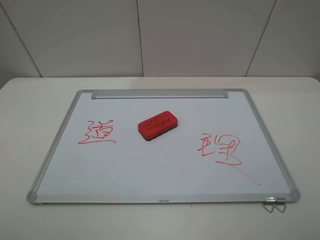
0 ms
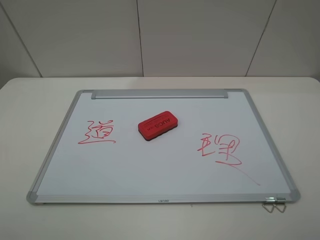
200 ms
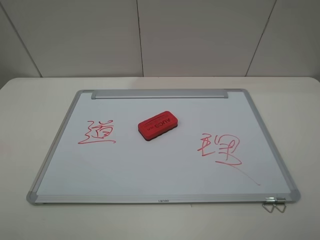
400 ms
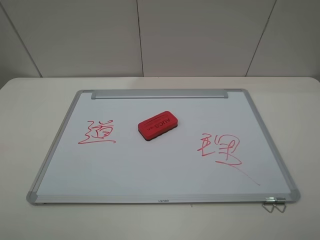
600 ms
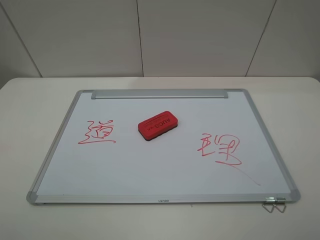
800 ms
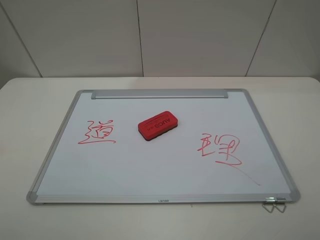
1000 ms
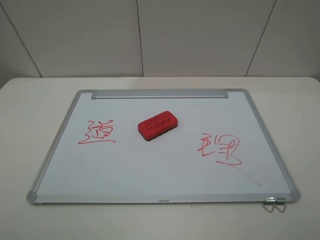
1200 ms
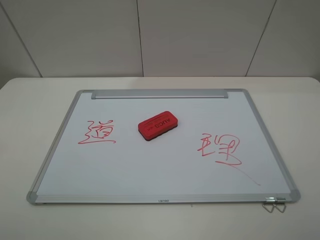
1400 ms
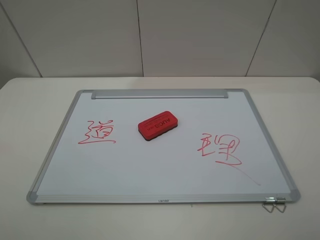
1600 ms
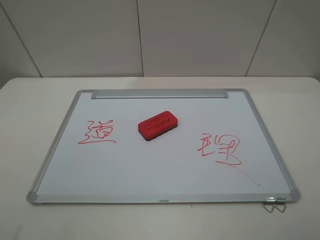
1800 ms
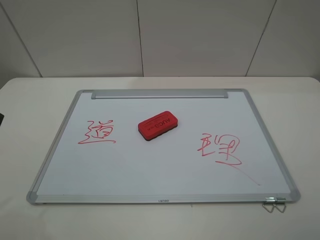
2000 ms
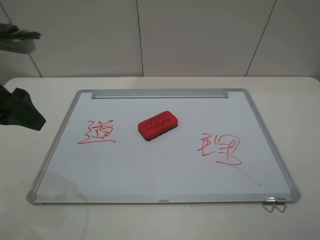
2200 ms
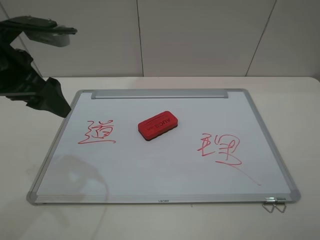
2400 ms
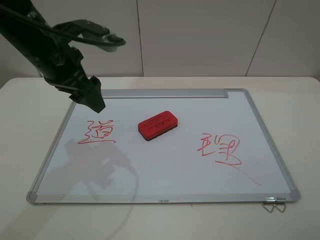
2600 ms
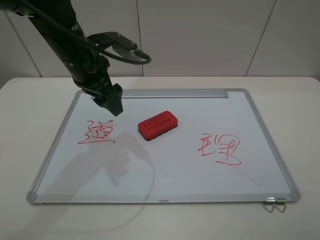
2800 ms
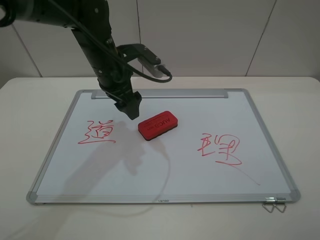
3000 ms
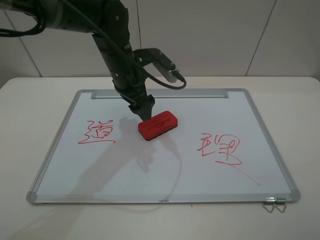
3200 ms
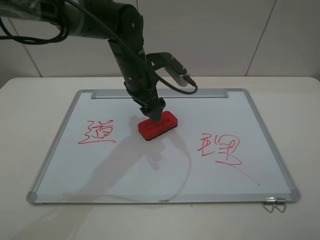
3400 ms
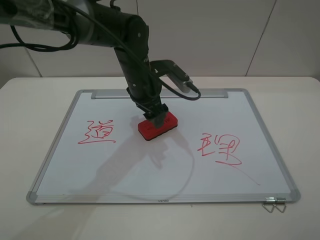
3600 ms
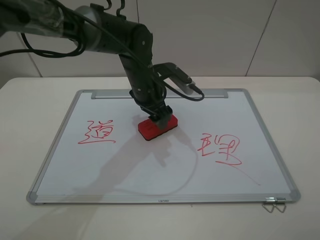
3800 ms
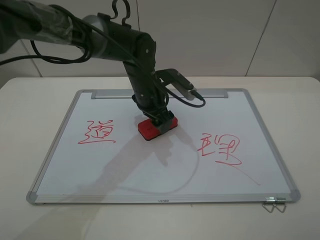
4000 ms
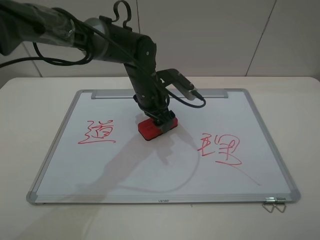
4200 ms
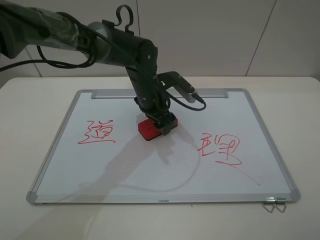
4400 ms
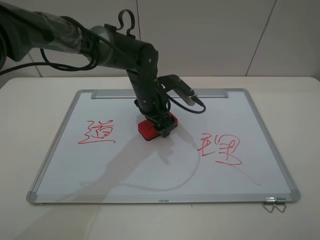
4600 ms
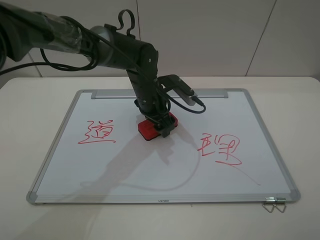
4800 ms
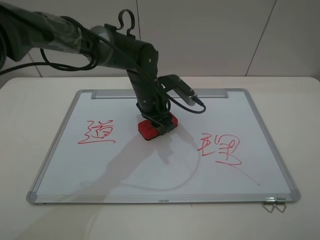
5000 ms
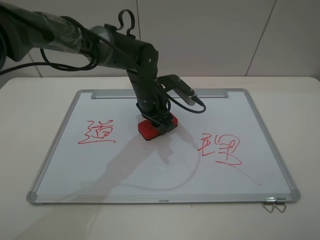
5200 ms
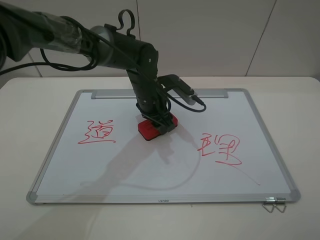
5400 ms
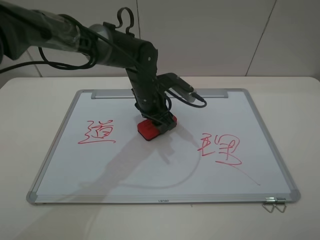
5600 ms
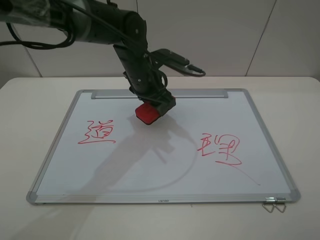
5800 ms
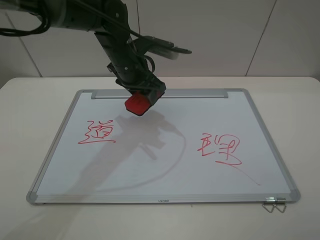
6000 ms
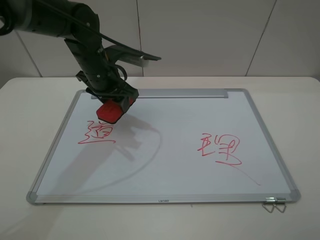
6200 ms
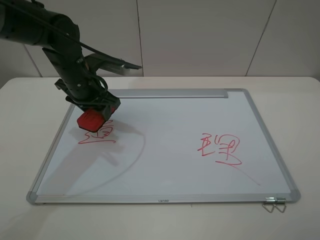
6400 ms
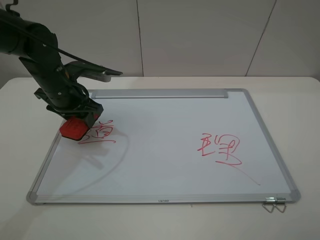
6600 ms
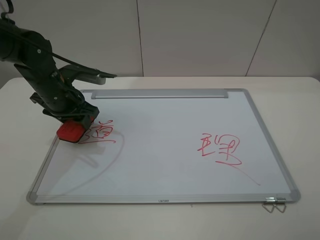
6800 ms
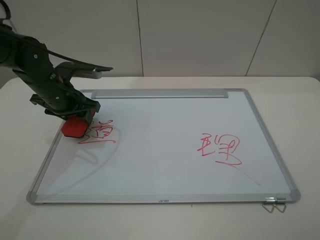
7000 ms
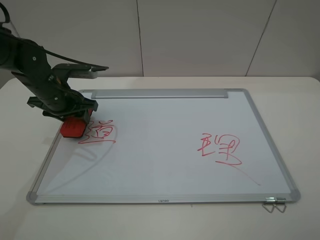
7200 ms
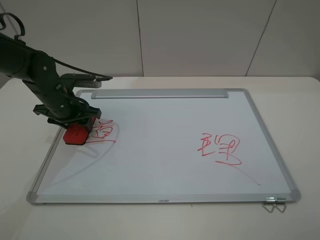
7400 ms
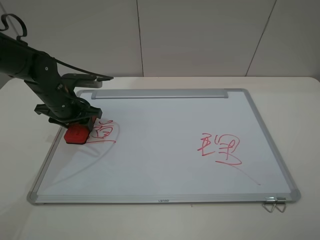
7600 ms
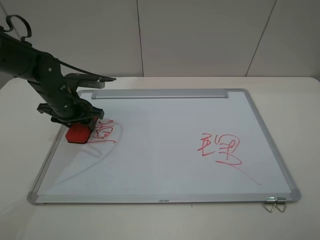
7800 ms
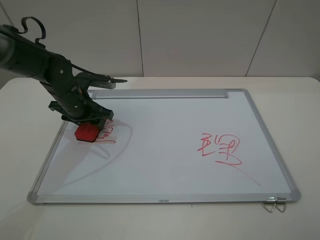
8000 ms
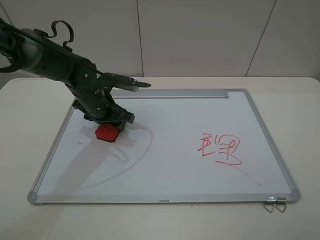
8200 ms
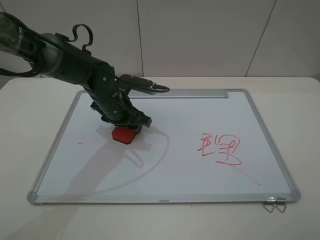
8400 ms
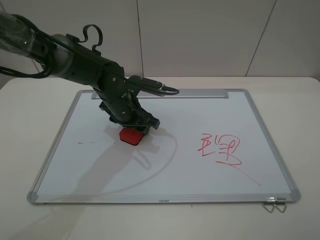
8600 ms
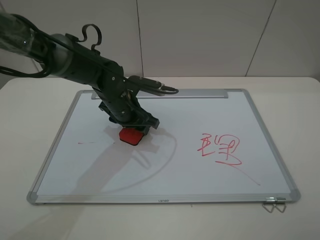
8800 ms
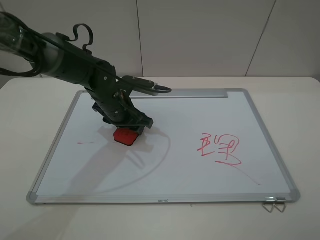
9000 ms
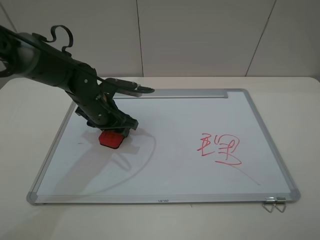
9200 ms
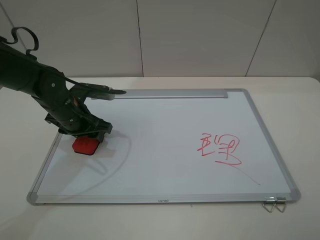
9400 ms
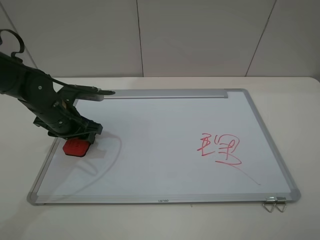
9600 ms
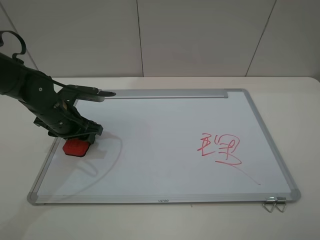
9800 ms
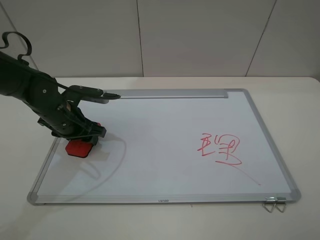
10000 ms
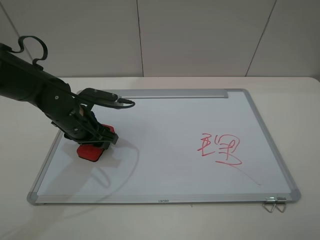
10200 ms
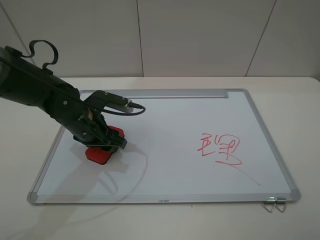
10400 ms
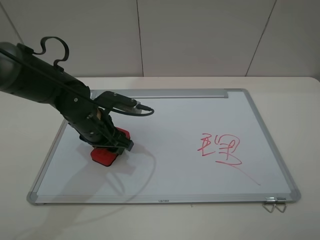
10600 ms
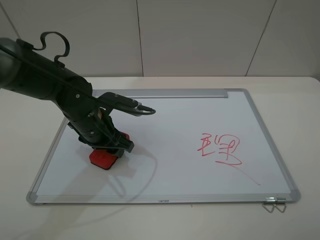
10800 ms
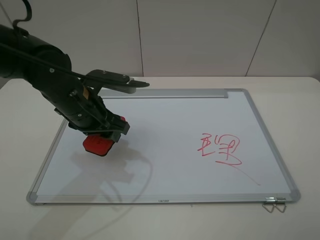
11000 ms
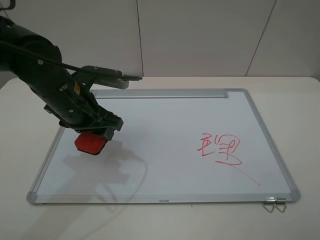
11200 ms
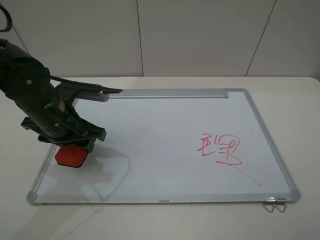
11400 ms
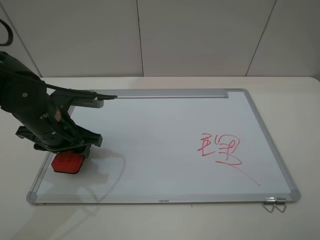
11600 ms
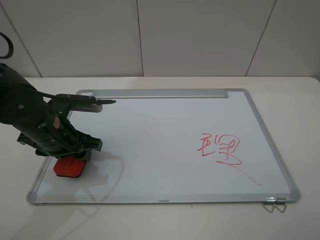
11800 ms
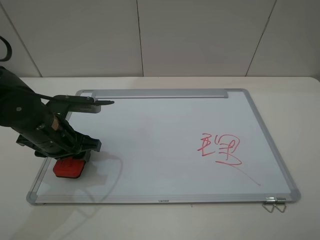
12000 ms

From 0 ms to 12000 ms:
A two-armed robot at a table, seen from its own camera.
Step, from 0 ms to 5000 ms: Grasp the eraser with the left gripper.
Step, from 5200 ms to 10800 ms: Grasp the eraser and wipe the blackboard with the left gripper.
From 1600 ms to 3000 ms: The left gripper heads forward and to the right, covering approximately 40 cm.
From 3000 ms to 4400 ms: The left gripper is displaced downward and to the right by roughly 10 cm.
From 4400 ms to 6000 ms: The left gripper heads upward and to the left, covering roughly 10 cm, and closes.
From 6000 ms to 7600 ms: The left gripper travels to the left and downward by about 15 cm.
From 7600 ms to 9000 ms: The left gripper is displaced to the right by roughly 10 cm.
From 9000 ms to 10400 ms: The left gripper is displaced backward by some 5 cm.
From 10400 ms to 12000 ms: The left gripper shifts by about 5 cm.

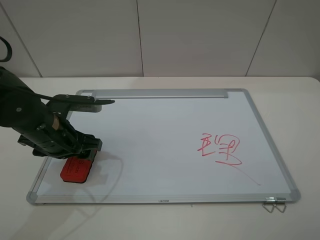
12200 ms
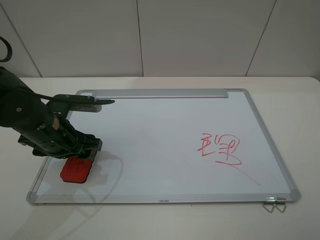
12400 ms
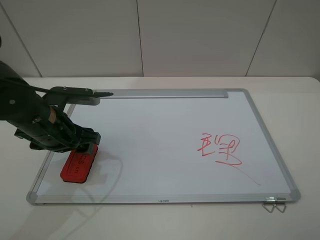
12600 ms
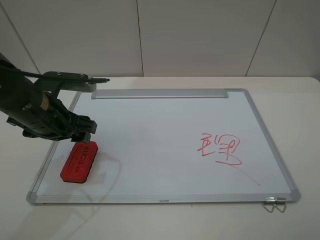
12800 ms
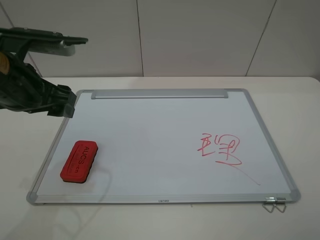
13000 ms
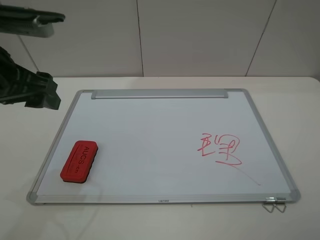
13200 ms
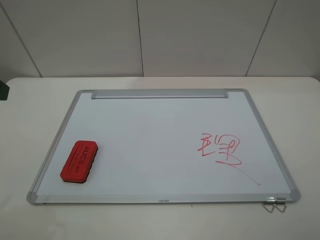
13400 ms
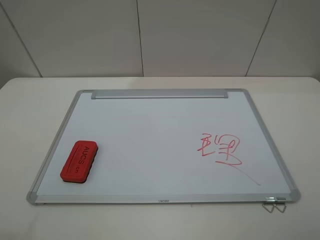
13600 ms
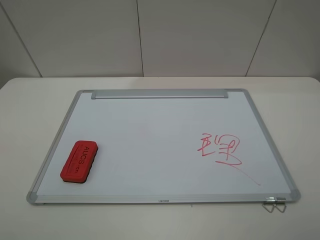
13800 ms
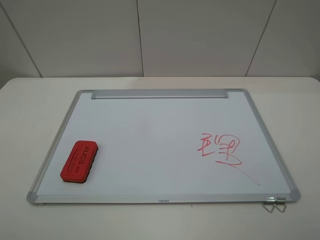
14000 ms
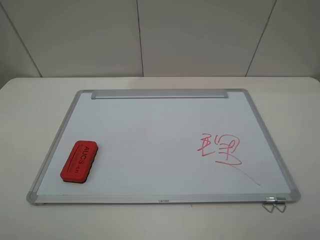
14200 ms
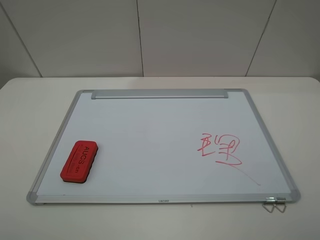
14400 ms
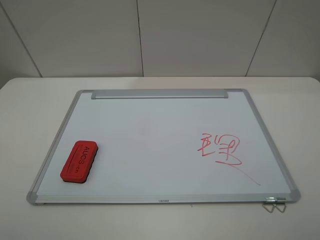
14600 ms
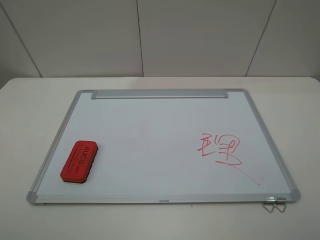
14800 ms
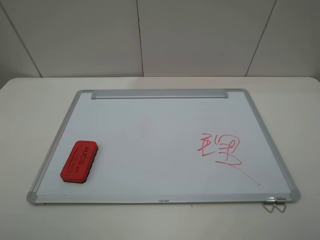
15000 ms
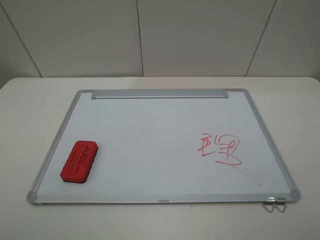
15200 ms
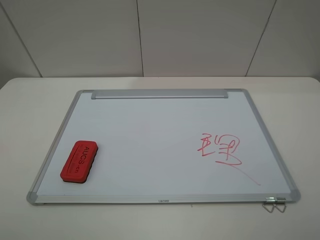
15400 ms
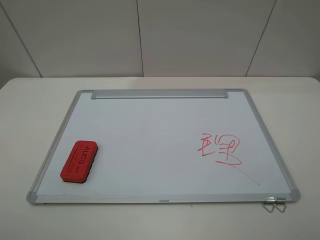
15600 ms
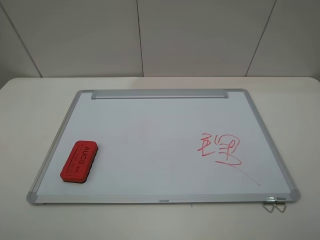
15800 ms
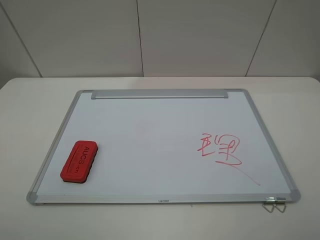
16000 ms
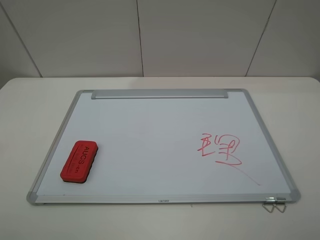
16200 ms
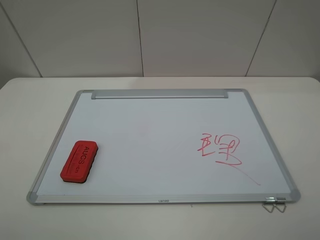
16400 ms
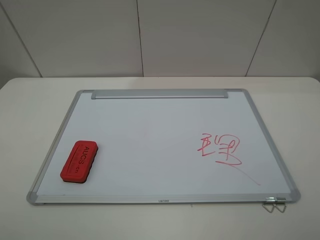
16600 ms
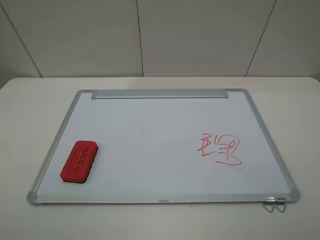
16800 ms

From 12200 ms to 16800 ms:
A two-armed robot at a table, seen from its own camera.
From 12200 ms to 13800 ms: The left gripper travels upward, backward and to the left by about 30 cm.
